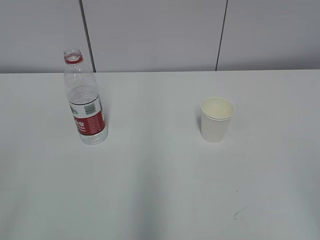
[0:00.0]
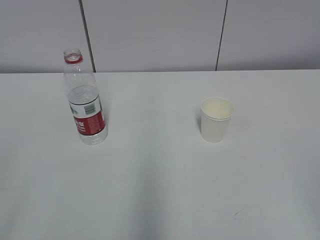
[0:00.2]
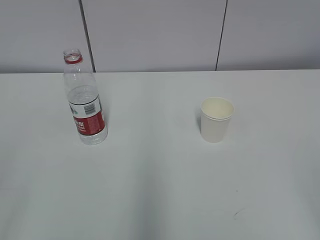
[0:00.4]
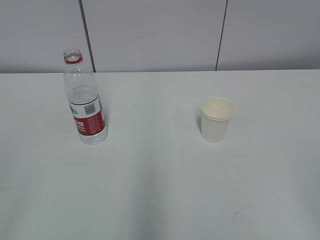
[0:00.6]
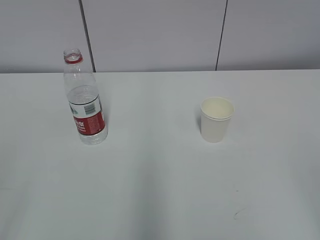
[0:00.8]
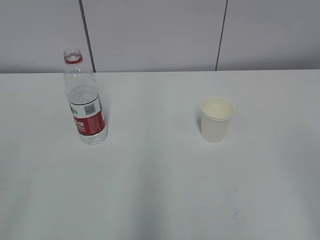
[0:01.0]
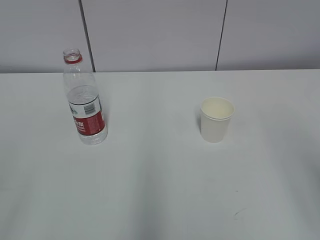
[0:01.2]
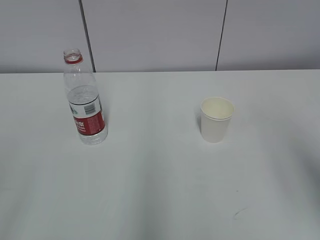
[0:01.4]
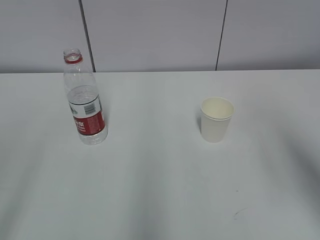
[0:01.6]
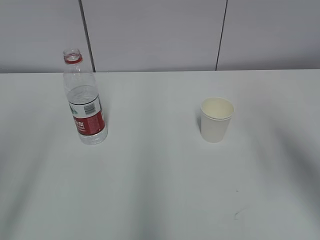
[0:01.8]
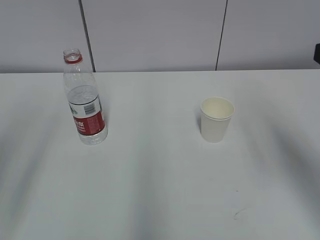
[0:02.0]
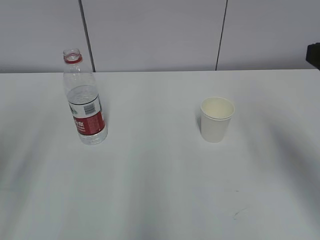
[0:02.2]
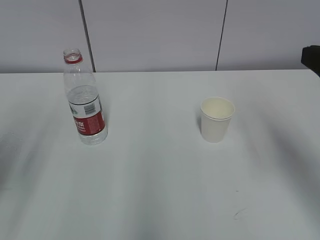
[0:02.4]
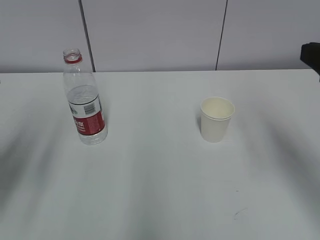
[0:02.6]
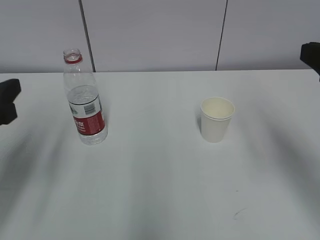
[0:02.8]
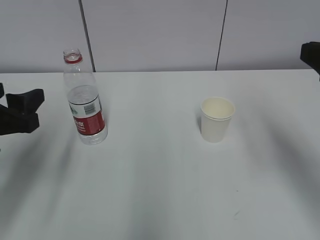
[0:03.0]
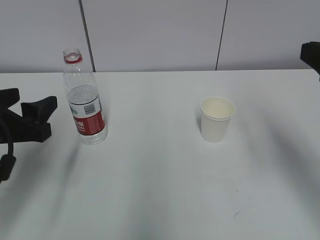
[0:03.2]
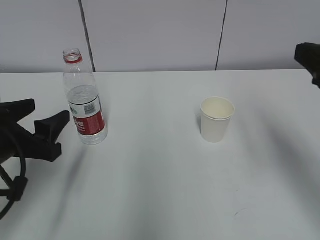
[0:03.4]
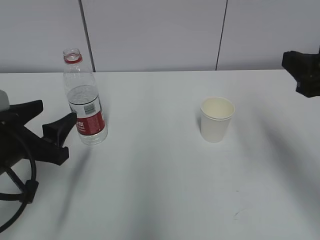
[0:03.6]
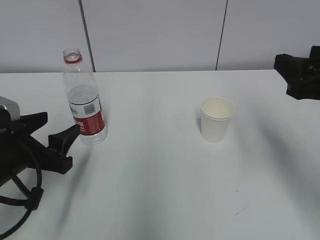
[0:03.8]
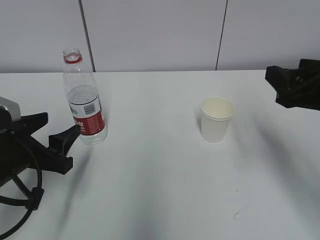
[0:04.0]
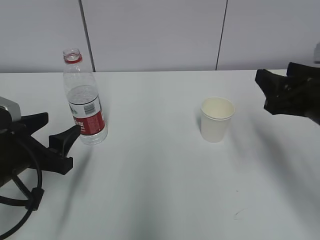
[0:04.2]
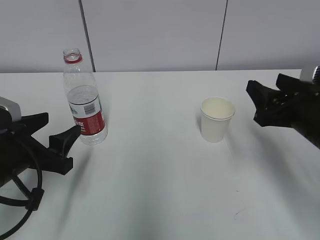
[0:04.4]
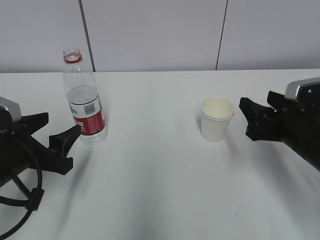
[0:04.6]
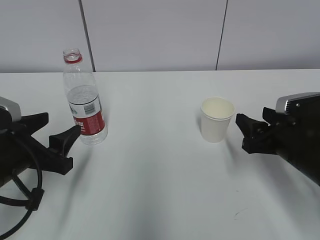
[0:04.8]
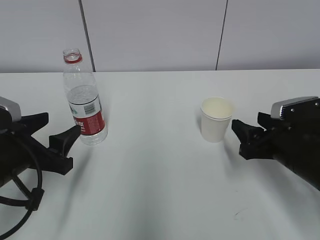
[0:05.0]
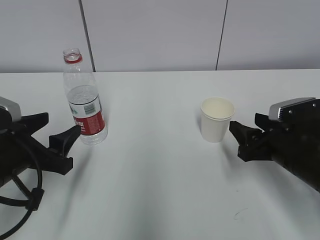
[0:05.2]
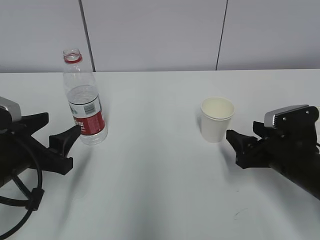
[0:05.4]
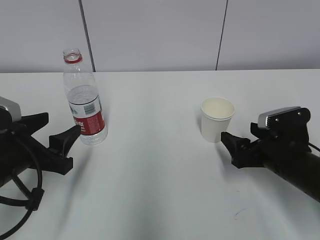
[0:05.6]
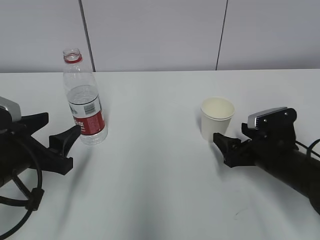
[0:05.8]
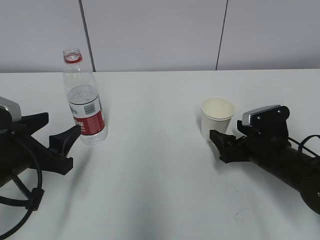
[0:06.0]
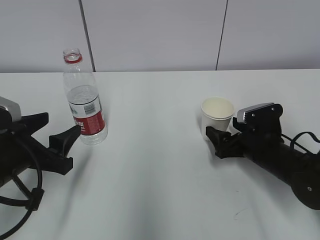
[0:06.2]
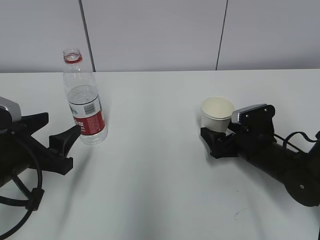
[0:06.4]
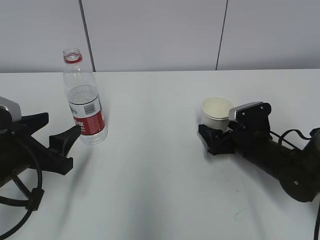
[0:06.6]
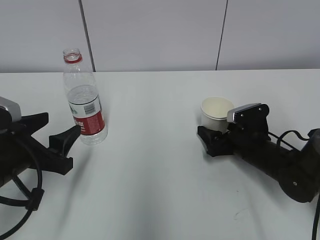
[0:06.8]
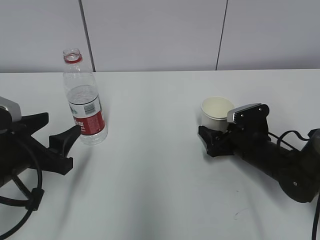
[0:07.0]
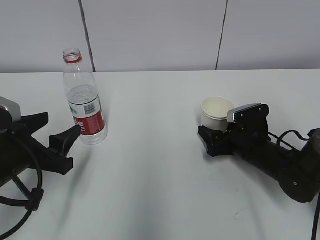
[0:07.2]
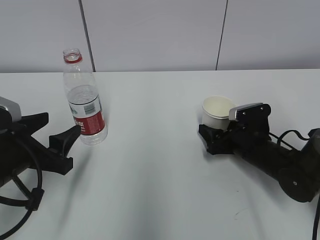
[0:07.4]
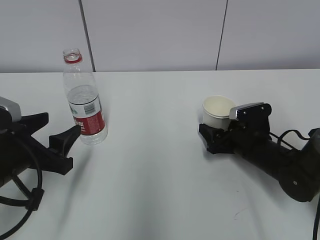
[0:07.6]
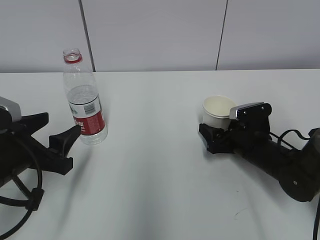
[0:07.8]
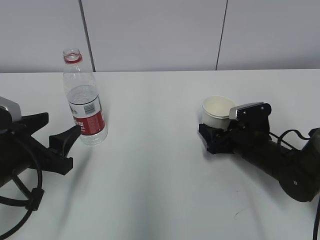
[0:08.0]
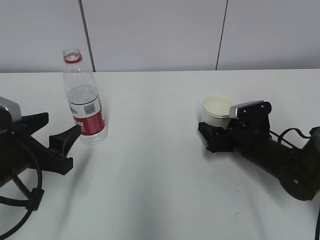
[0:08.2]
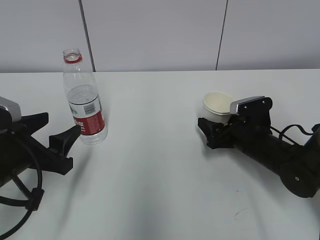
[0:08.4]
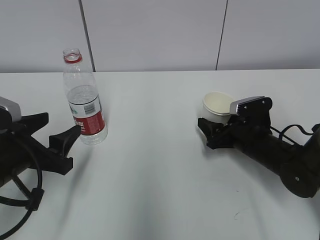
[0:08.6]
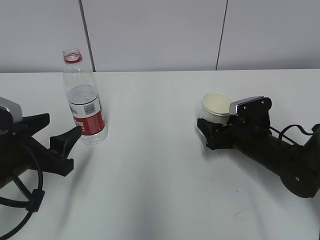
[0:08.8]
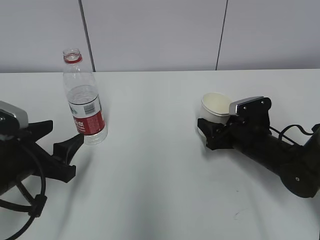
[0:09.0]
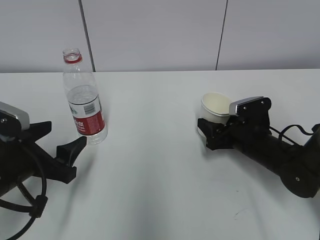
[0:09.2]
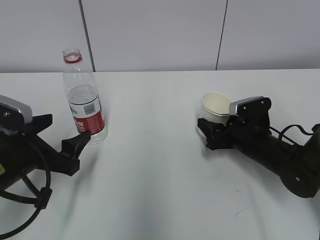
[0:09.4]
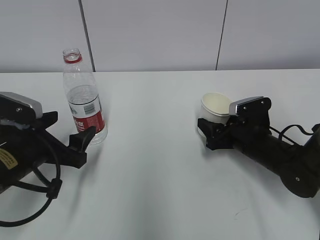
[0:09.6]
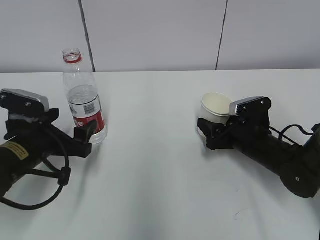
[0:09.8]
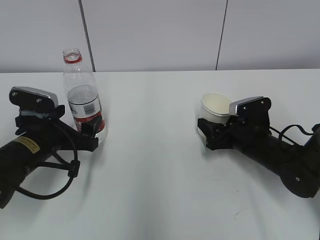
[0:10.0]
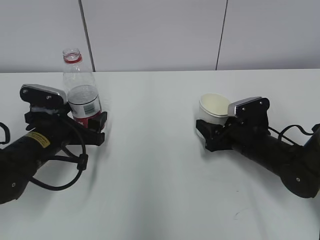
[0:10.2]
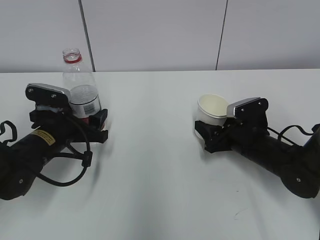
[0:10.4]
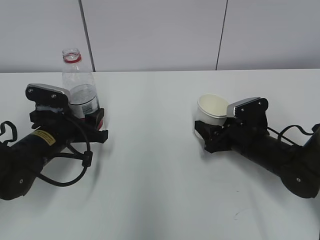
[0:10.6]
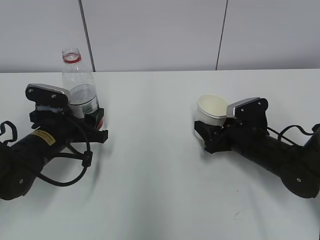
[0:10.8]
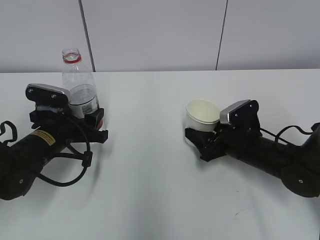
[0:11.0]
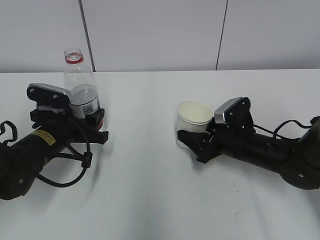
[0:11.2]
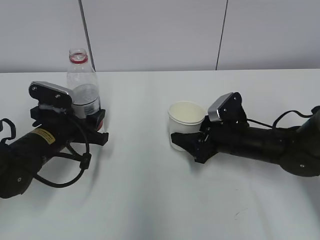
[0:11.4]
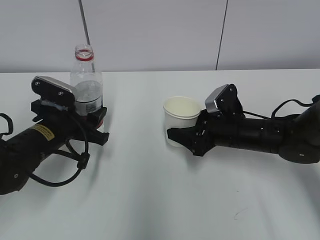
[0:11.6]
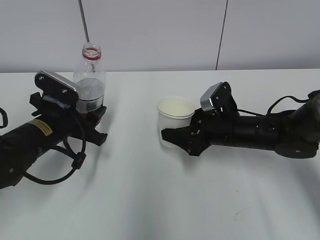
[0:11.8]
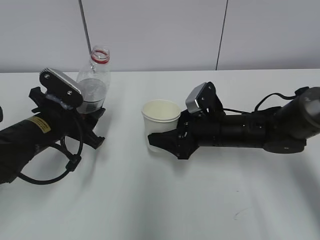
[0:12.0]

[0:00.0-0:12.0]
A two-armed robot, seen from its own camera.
Step, 0:00.0 to 0:06.8: Grab the paper cup with the right hand.
Step, 0:07.0 to 0:09.2: Grab the water bottle with the left hand.
Step, 0:09.4 to 0:11.8: Lift the paper cup with the right hand.
0:01.6 to 0:03.0: The right gripper is displaced forward by roughly 5 cm. The left gripper moves forward and downward, roughly 20 cm.
0:03.0 to 0:04.4: The right gripper travels downward and forward by about 15 cm. Meanwhile the left gripper heads downward, covering approximately 10 cm.
0:04.4 to 0:06.0: The right gripper moves downward, approximately 10 cm, and opens up.
0:06.0 to 0:07.6: The right gripper closes its fingers.
0:07.6 to 0:09.0: The right gripper closes its fingers.
0:09.0 to 0:10.4: The left gripper moves forward, about 10 cm, and opens, then closes once more.
0:10.4 to 0:12.0: The left gripper closes its fingers. The right gripper is displaced to the left by roughly 5 cm.

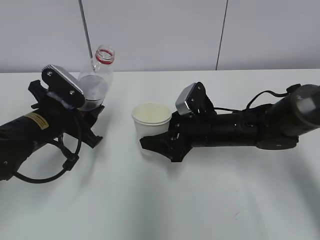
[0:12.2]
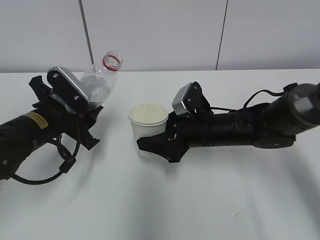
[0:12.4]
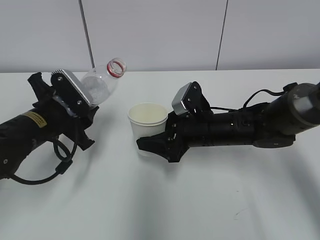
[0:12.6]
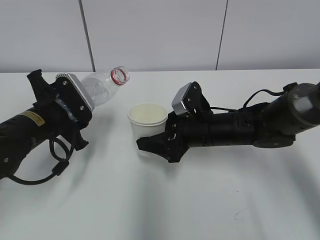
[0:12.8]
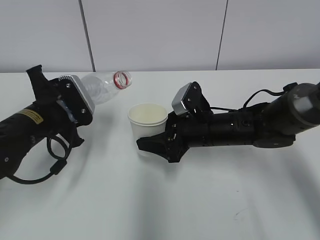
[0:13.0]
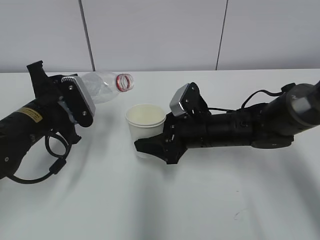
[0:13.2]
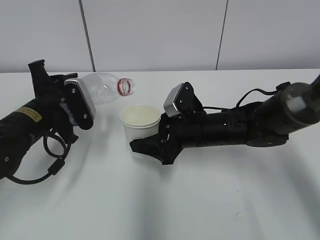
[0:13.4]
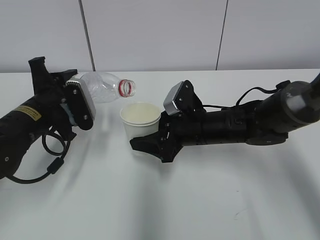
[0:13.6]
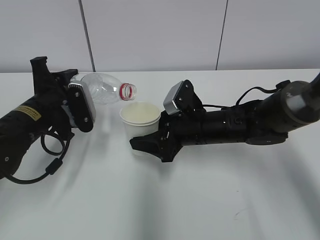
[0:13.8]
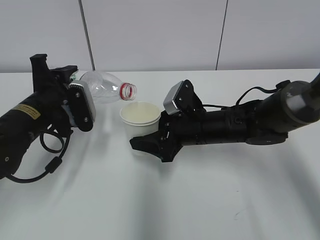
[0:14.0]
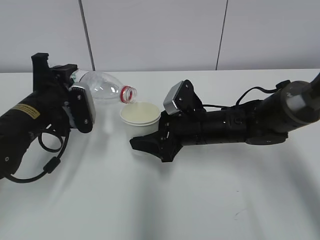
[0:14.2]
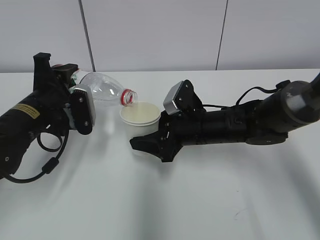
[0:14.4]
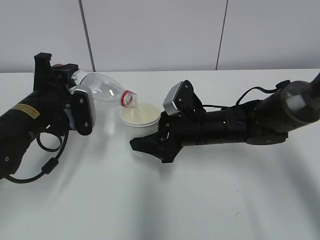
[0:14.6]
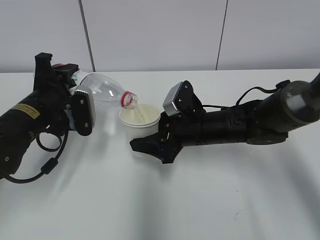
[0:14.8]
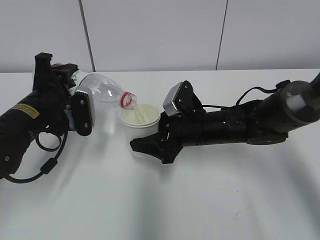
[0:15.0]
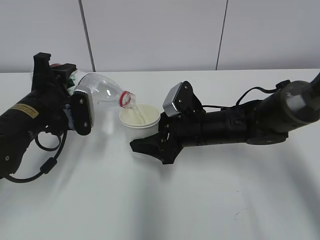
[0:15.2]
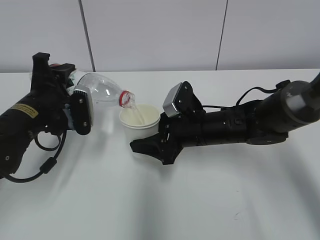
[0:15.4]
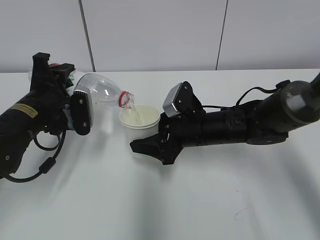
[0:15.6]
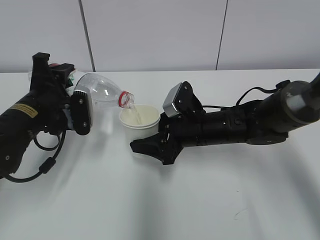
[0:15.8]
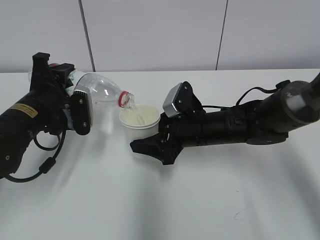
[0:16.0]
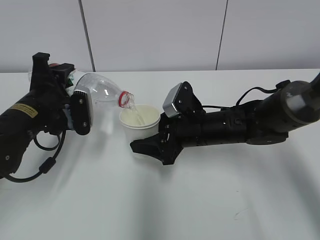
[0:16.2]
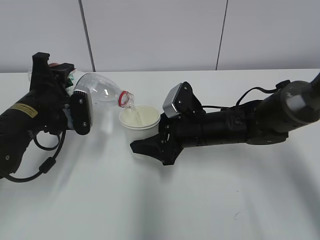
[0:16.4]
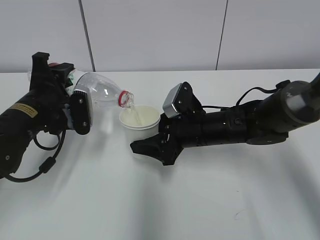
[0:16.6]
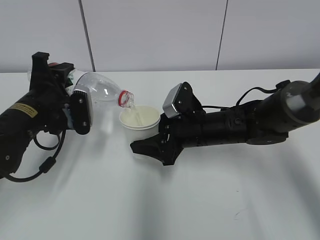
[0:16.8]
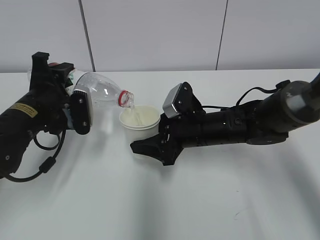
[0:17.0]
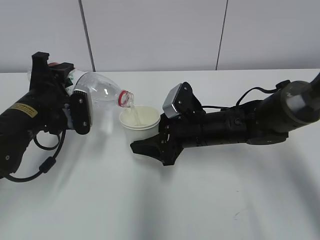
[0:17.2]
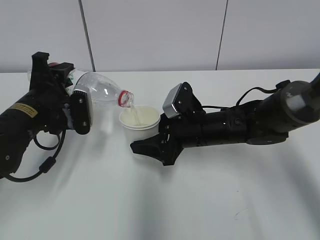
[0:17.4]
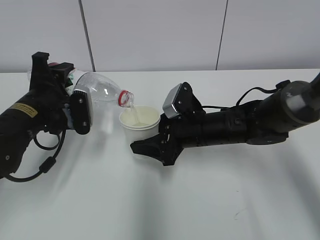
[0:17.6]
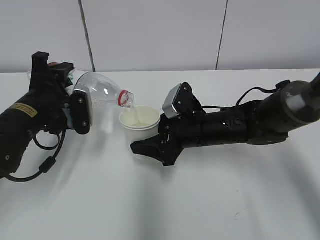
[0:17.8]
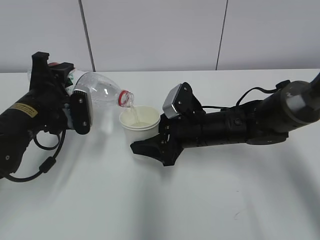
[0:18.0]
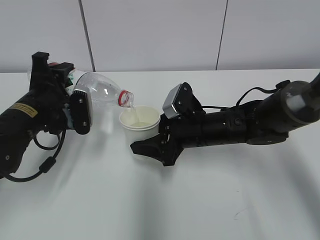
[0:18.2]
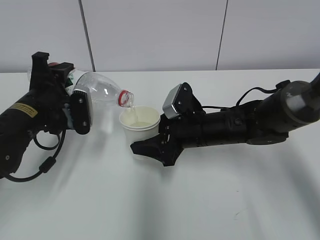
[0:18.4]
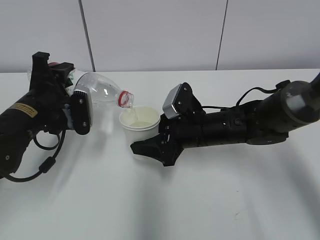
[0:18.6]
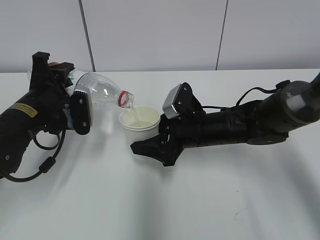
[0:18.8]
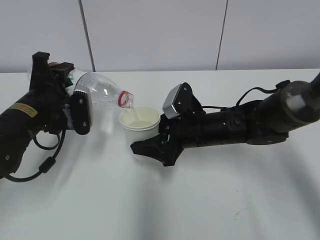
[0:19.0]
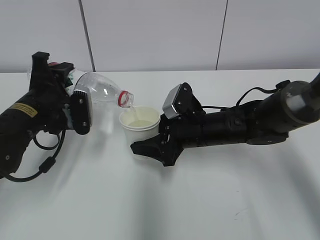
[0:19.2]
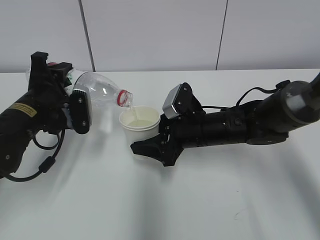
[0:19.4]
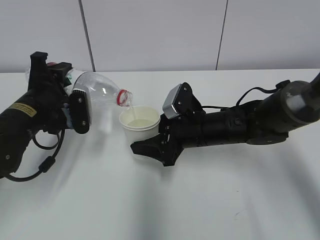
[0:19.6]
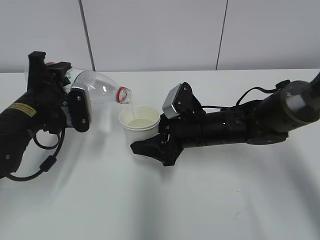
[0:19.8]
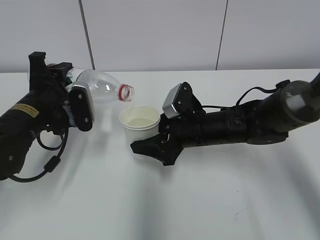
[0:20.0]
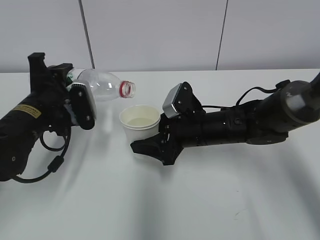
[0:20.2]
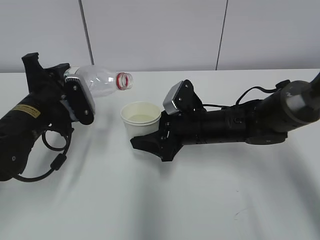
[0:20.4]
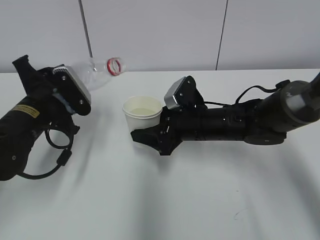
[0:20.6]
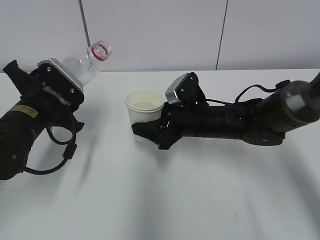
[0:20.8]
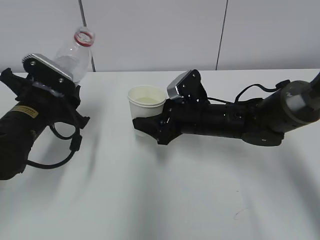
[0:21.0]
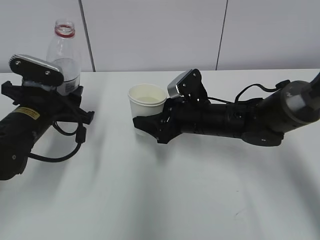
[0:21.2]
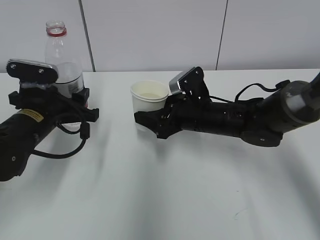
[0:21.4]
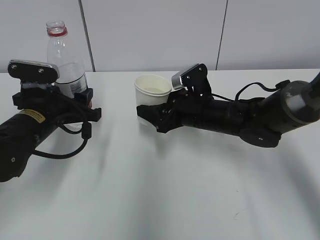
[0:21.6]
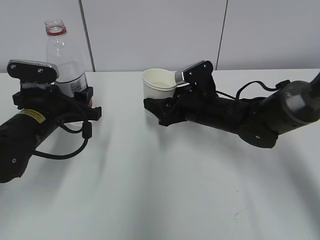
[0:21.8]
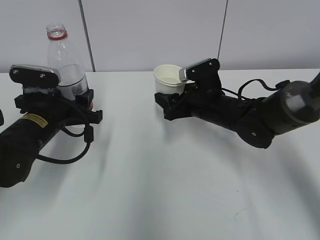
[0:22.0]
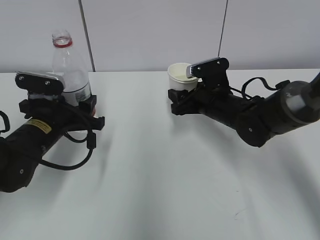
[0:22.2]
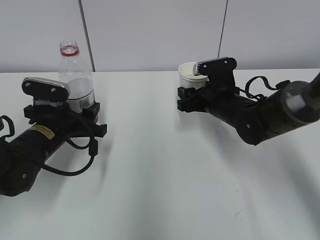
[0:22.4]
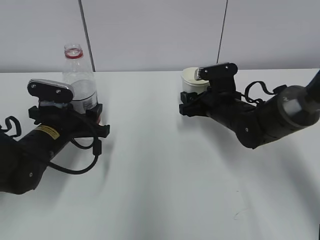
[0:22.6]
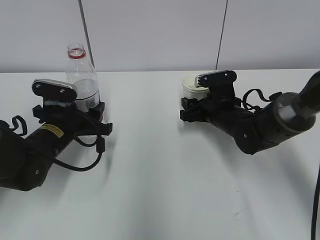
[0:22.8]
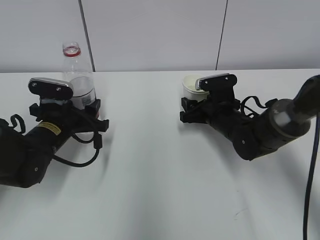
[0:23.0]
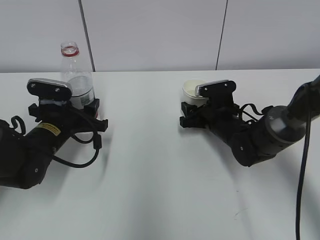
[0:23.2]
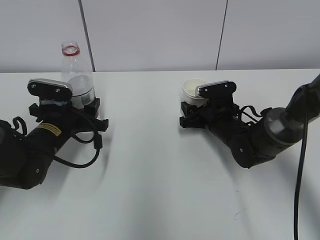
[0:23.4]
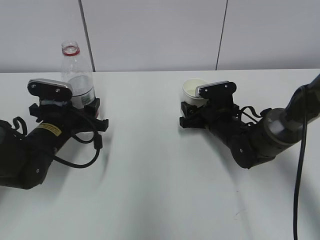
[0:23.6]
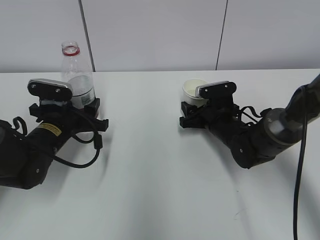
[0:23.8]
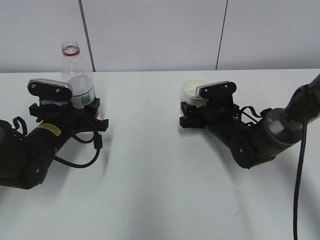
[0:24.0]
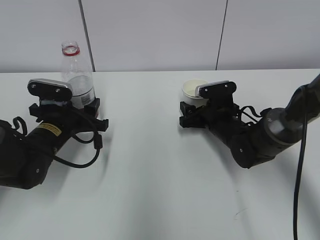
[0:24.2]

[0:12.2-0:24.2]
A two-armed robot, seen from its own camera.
Step, 0:12.2 to 0:16.6: Fill water with the right hand.
Step, 0:12.2 to 0:16.6: Pour water with the left hand.
Step, 0:18.2 to 0:20.4: Place the paper cup with the right hand.
Step, 0:20.6 to 0:23.6: Place the water bottle with the left hand.
0:13.8 to 0:15.2: The grippers make only small movements.
0:15.2 to 0:19.8: Neither gripper changes place.
0:21.2 to 0:22.6: The right gripper heads to the right, covering some 5 cm; the left gripper moves some 5 cm.
0:22.6 to 0:24.2: The right gripper opens.
